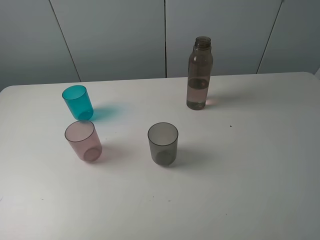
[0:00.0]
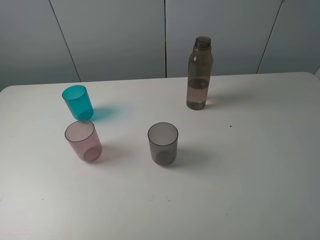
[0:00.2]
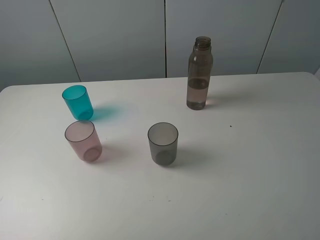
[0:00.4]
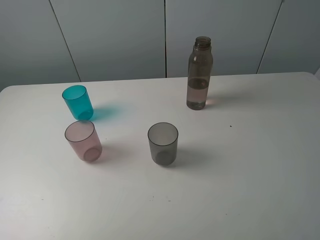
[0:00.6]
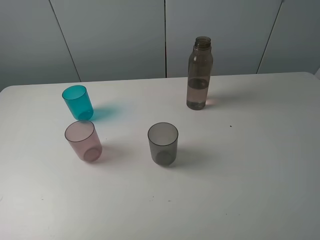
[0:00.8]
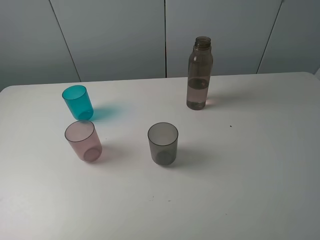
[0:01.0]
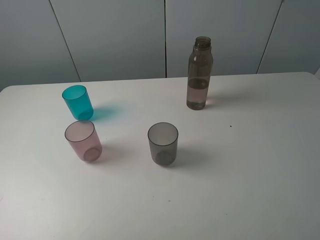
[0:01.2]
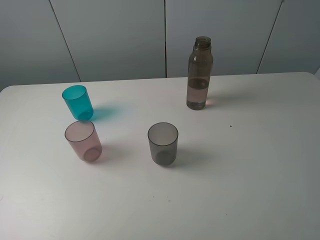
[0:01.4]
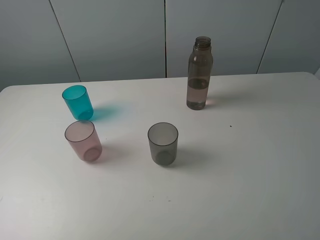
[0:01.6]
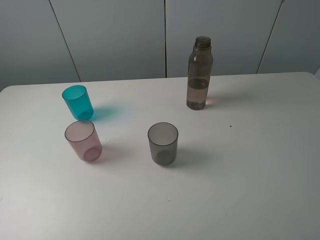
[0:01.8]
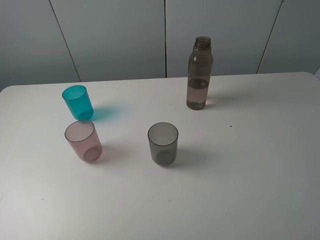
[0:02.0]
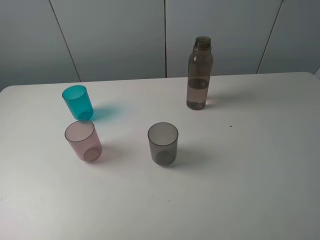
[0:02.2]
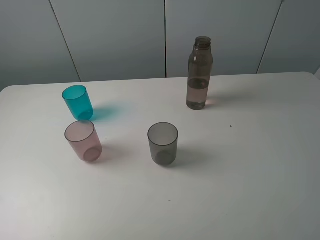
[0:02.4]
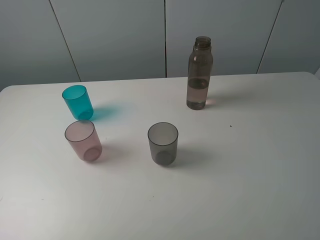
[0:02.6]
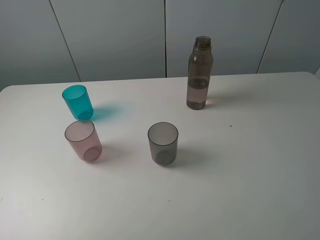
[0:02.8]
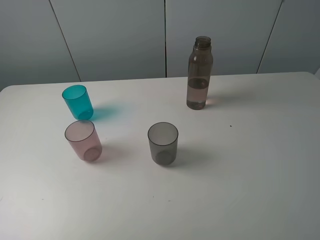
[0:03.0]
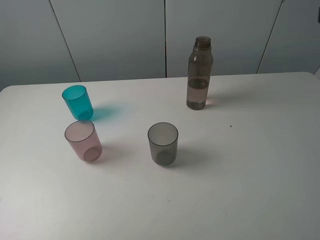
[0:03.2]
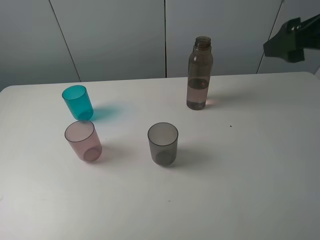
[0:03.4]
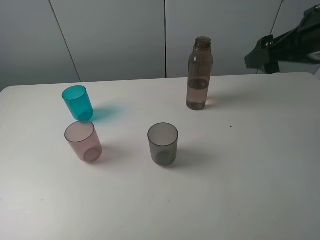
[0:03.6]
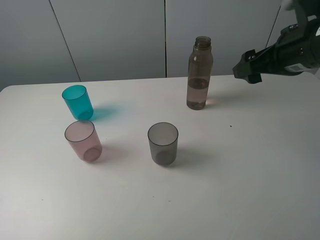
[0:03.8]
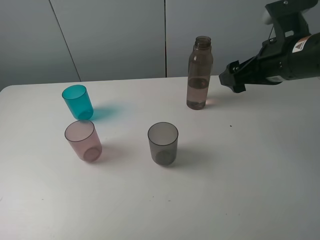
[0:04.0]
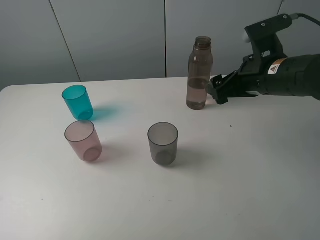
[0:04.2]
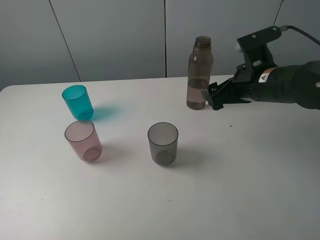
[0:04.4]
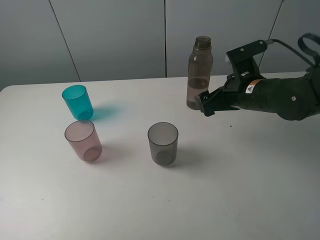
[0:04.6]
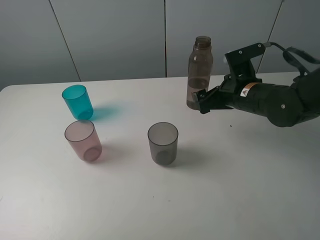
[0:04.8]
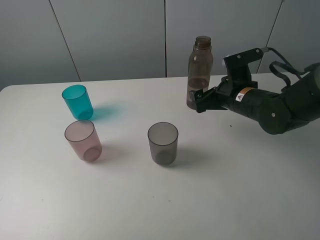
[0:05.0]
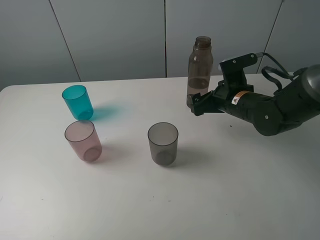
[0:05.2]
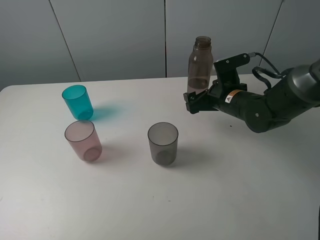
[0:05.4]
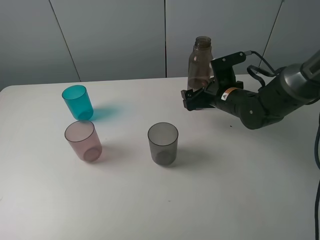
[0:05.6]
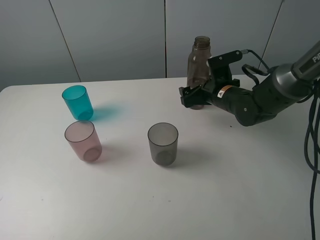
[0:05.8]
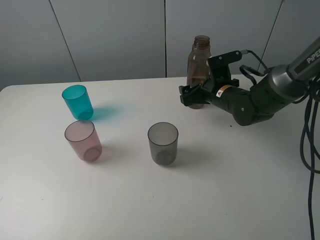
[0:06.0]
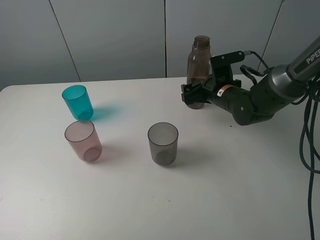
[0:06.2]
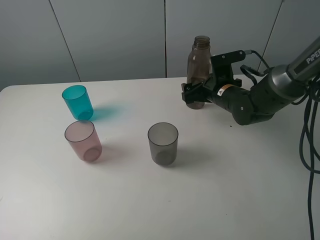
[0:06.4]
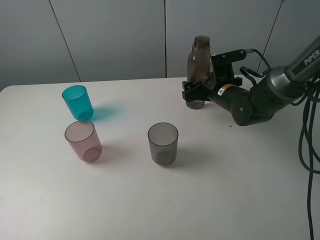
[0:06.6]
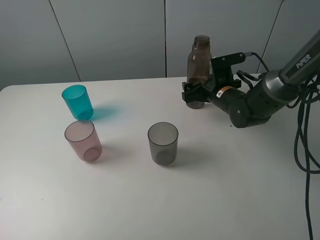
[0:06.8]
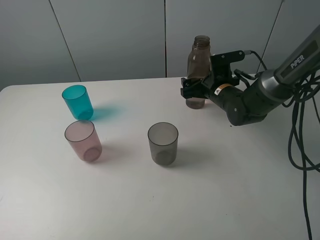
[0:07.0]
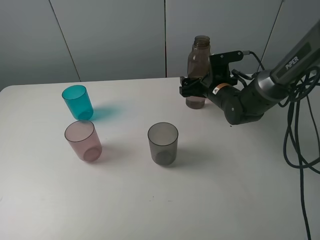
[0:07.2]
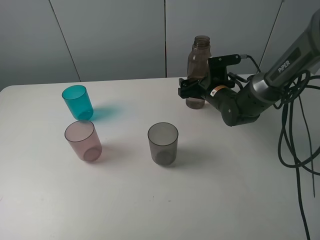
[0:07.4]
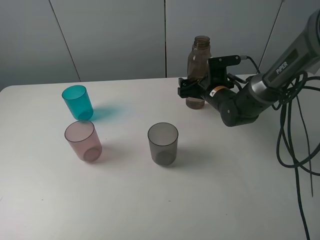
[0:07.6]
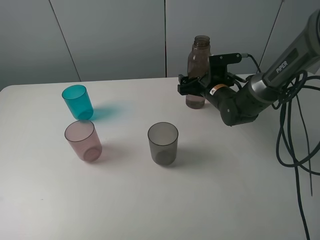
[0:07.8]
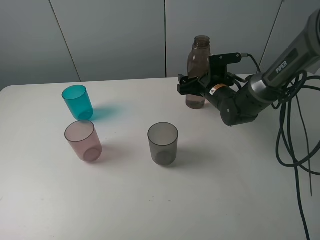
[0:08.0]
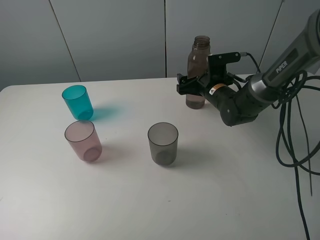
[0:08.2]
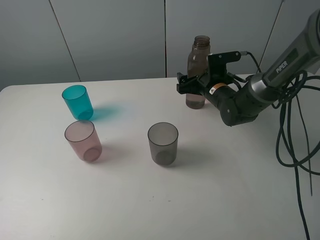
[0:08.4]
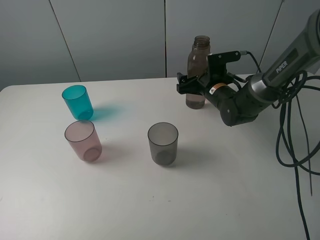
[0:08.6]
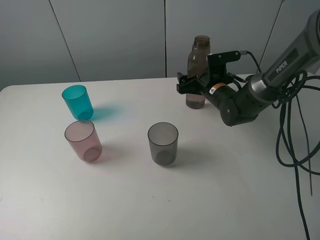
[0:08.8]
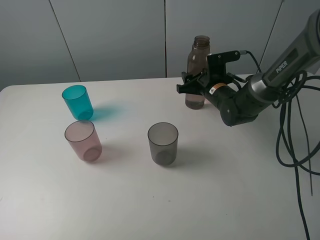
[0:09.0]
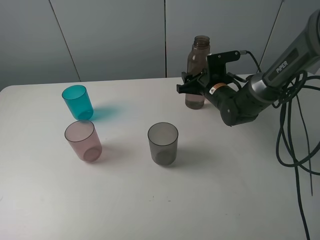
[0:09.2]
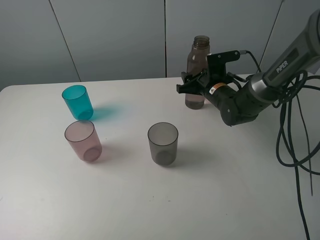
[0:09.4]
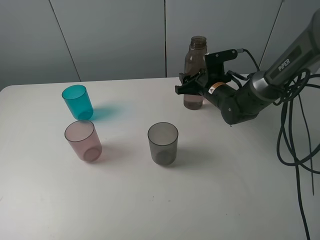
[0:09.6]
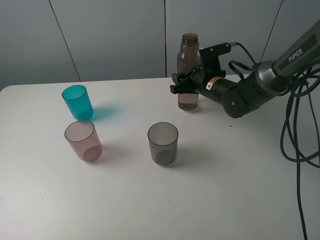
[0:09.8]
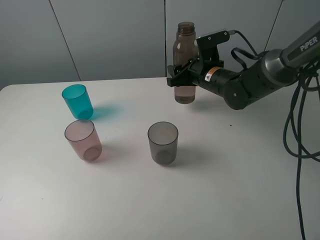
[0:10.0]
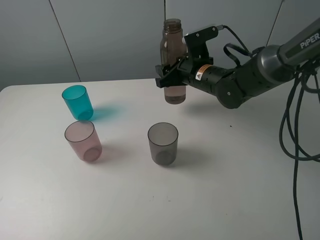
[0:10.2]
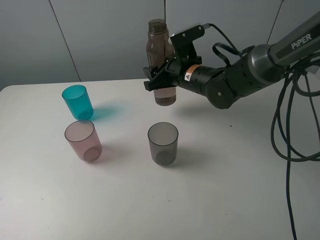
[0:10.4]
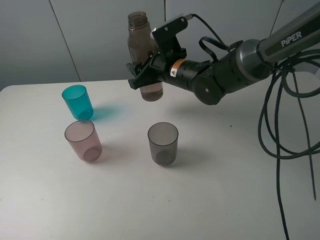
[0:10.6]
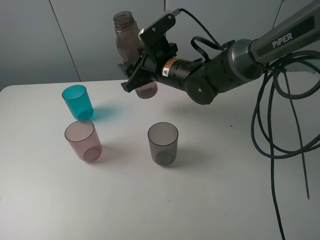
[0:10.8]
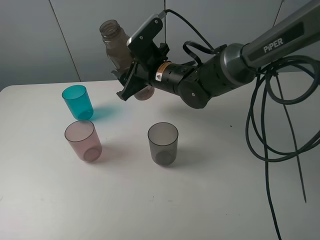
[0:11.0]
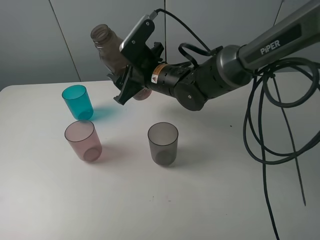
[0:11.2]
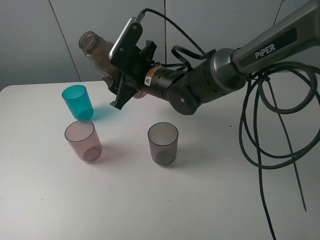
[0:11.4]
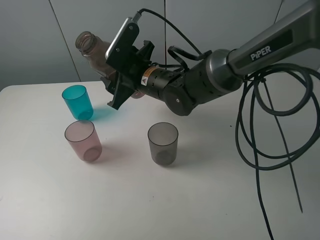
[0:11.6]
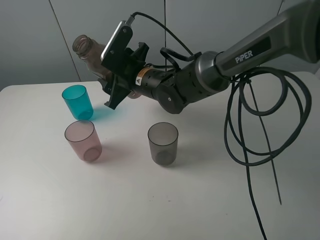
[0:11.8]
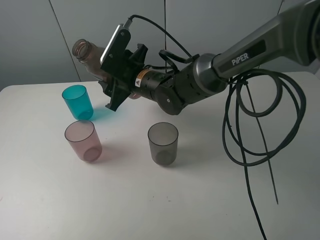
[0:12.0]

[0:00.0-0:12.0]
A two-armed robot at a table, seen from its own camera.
Task of the whole recording: pick up the bottle filled with water and pour water into the middle cup of the three cups.
Step, 0:00.0 to 0:09.6: Grasp the brown bottle with the right gripper.
0:00.0 to 0:01.6: The two grippers keep their place.
0:03.0 to 0:04.4: The right gripper goes some 25 cm downward, forward and to the left.
0:04.4 to 0:06.0: The right gripper is displaced downward and forward by roughly 10 cm.
0:06.0 to 0:07.6: The grippers stay close to where they were, moving slightly.
0:07.6 to 0:09.0: The right gripper closes.
0:09.0 to 0:10.4: The right gripper travels to the left and upward by some 10 cm.
0:10.4 to 0:12.0: The right gripper shifts some 10 cm to the left.

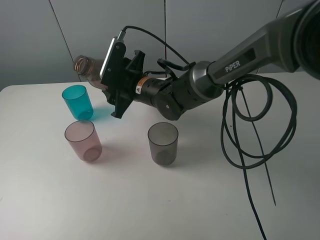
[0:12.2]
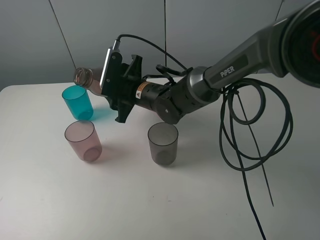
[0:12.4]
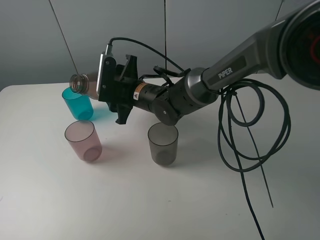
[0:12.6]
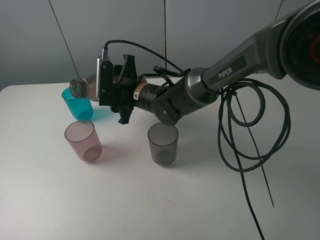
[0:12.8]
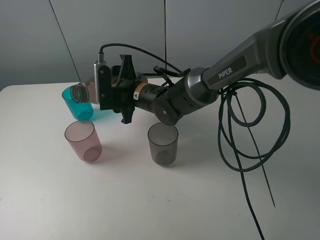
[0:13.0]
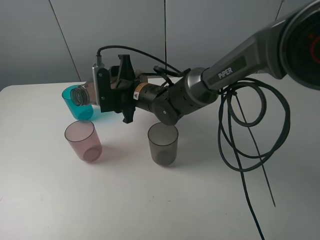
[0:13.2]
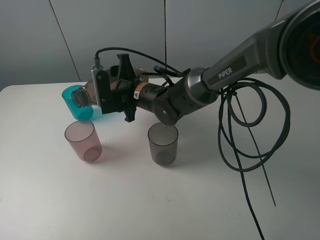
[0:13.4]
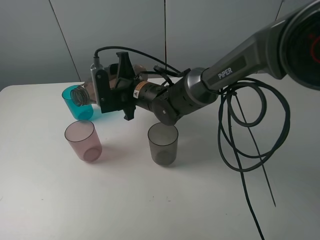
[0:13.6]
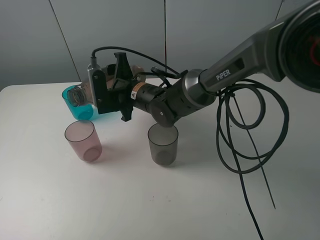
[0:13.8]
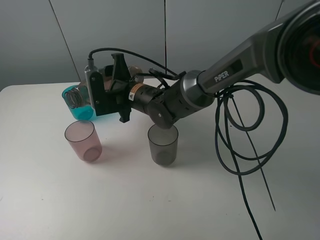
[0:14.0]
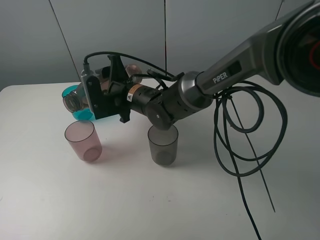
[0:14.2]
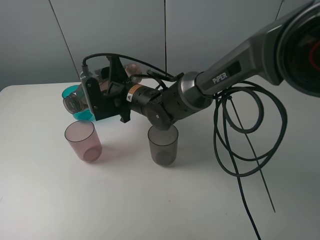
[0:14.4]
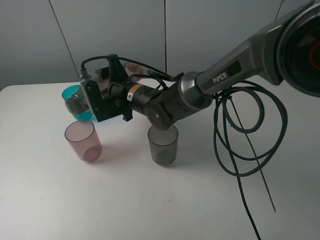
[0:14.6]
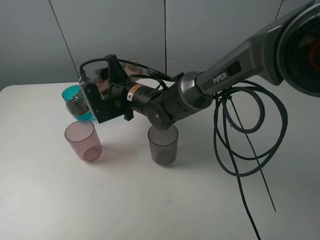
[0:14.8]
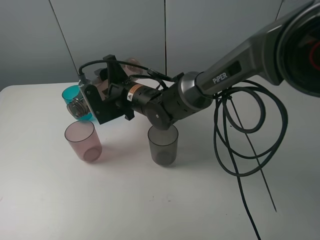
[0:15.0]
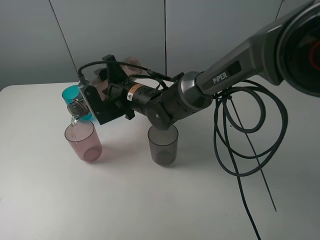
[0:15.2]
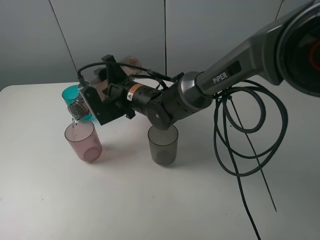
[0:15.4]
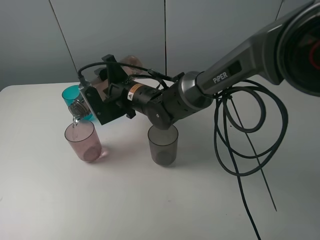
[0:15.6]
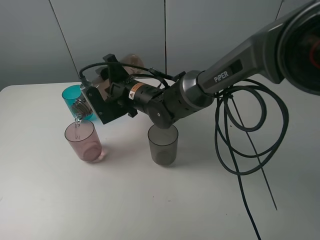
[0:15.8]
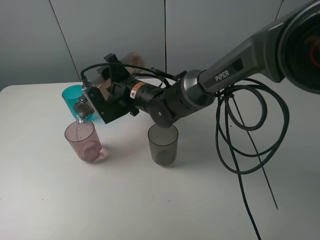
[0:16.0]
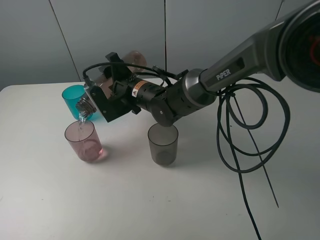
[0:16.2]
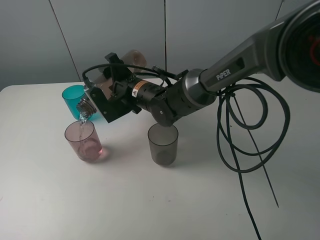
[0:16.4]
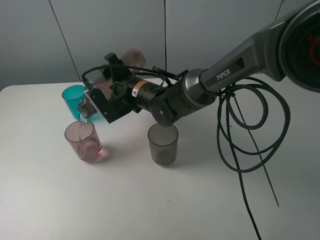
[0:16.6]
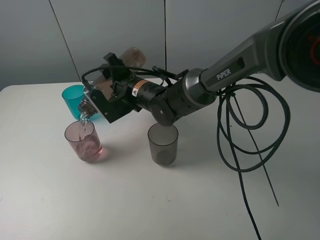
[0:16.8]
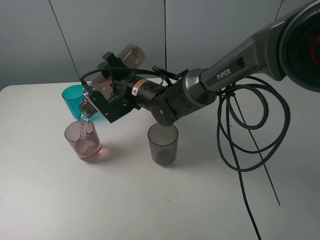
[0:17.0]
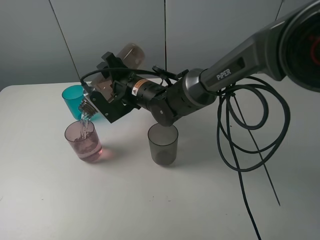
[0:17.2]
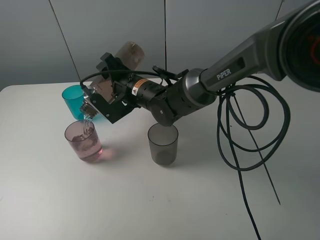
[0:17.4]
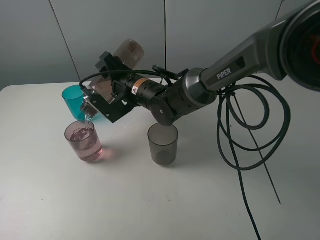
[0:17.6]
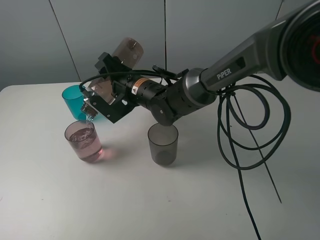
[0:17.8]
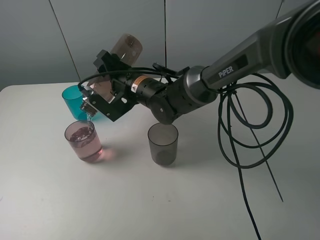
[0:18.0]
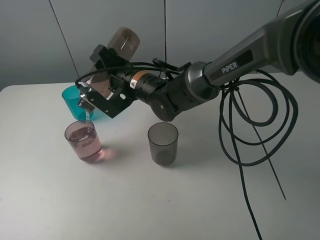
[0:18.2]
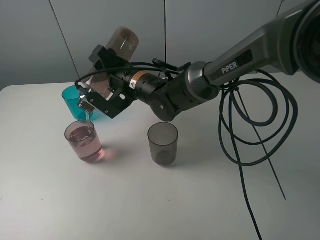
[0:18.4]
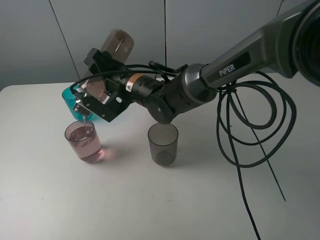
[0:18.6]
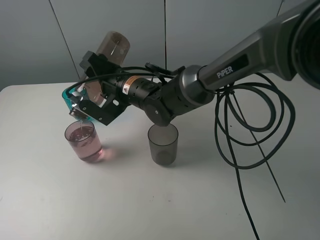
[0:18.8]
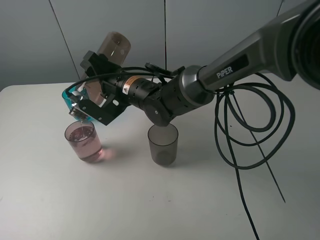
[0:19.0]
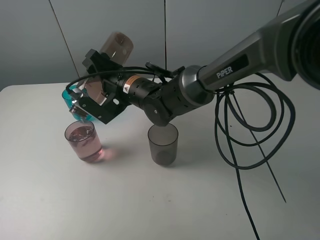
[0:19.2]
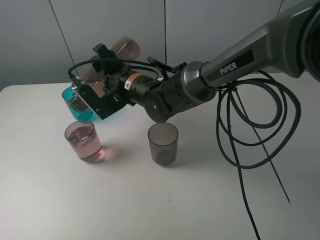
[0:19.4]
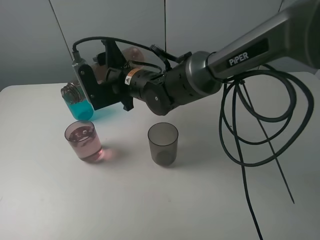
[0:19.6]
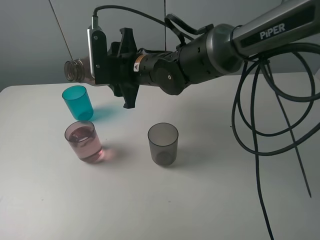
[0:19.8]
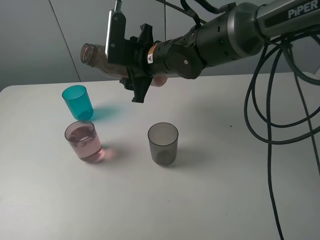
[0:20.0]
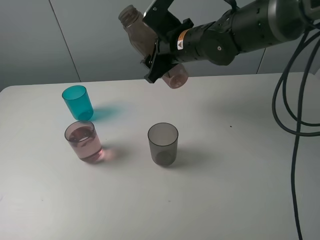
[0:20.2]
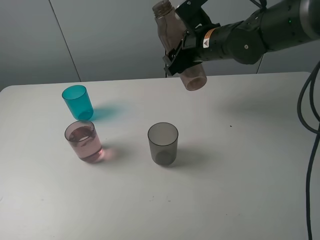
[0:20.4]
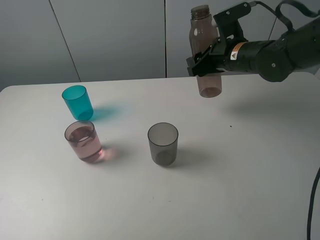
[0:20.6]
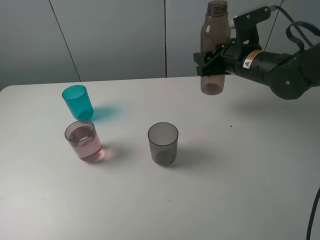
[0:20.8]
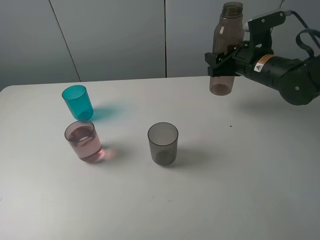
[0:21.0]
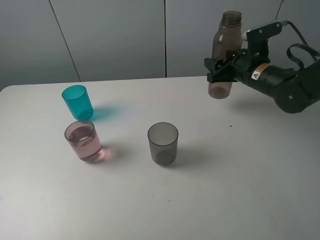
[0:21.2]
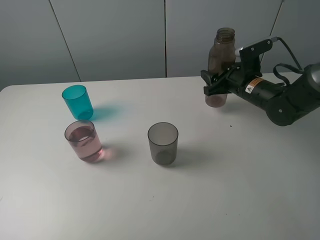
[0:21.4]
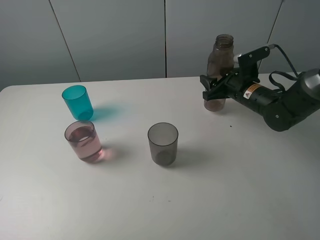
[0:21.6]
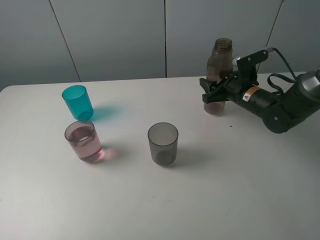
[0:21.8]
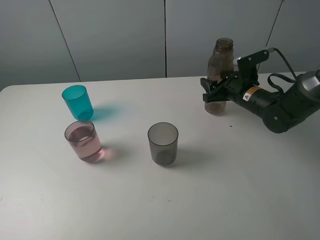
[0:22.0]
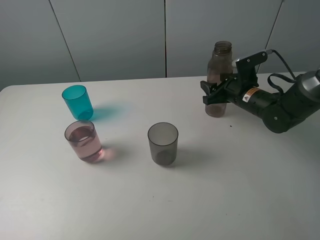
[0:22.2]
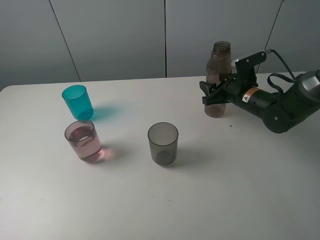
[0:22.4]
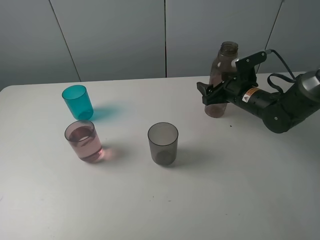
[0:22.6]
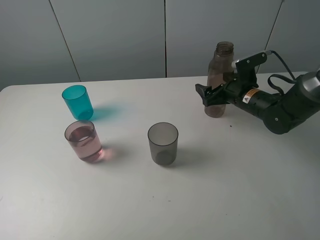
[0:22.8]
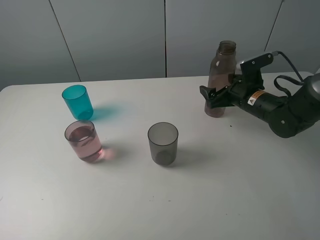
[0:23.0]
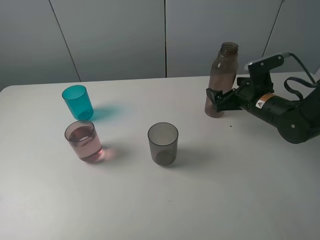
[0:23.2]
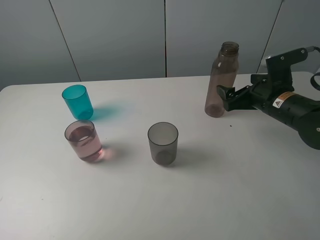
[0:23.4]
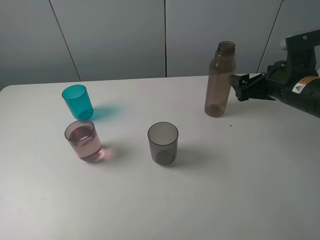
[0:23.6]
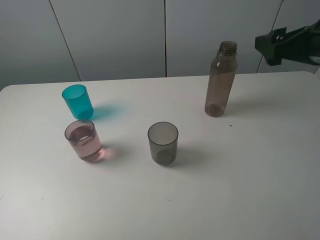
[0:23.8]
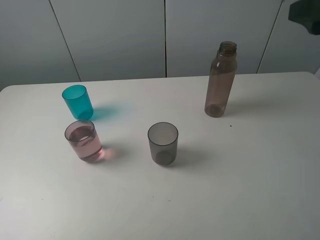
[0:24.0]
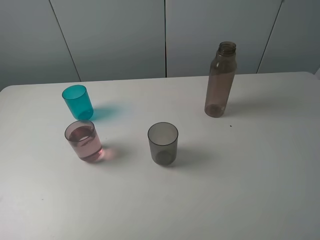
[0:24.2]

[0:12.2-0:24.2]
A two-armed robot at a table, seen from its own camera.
Task of the whole recording: pick up the bottle filled with water and pour water into the middle cup of the three cups.
Step, 0:12.2 to 0:14.6: Pour water from transparent bottle to red cup with the right gripper.
Step, 0:14.8 to 0:23.2: Place the brown bottle with the right gripper.
0:13.8 to 0:15.2: The grippers move only a little.
0:15.2 to 0:16.6: The grippers move only a little.
0:16.6 to 0:18.2: There are only small adjustments of the grippers.
0:19.8 to 0:21.2: The right gripper goes approximately 25 cm to the right.
0:21.2 to 0:22.6: The right gripper goes roughly 5 cm downward, and opens its fingers.
0:22.6 to 0:24.2: The right gripper goes approximately 35 cm upward and backward.
